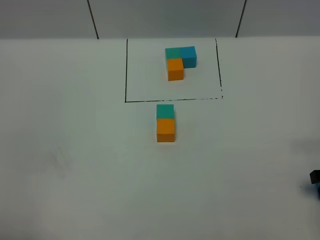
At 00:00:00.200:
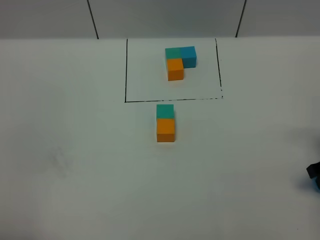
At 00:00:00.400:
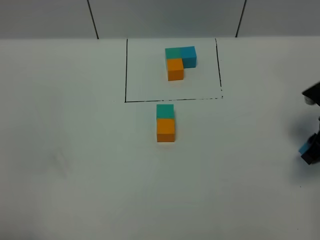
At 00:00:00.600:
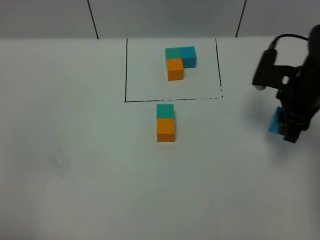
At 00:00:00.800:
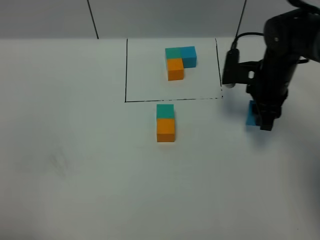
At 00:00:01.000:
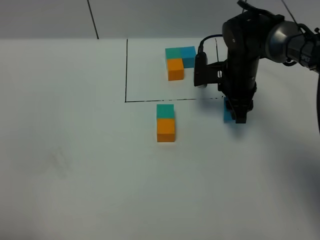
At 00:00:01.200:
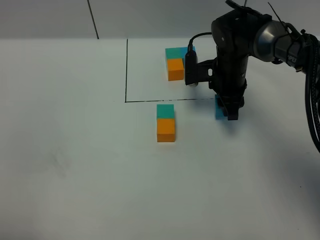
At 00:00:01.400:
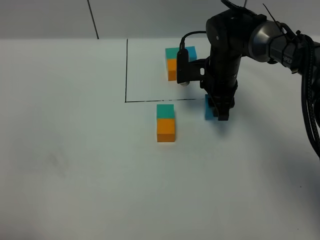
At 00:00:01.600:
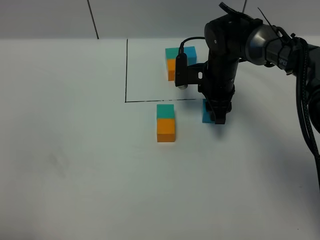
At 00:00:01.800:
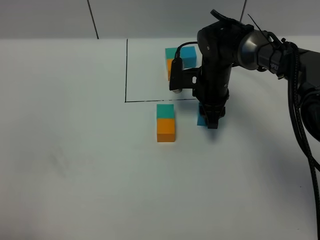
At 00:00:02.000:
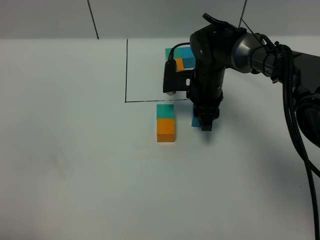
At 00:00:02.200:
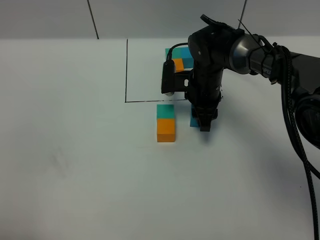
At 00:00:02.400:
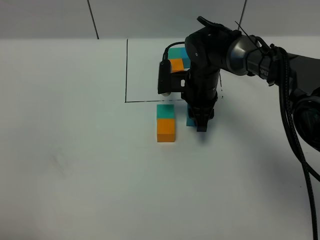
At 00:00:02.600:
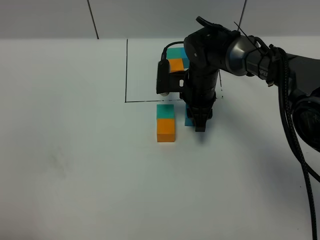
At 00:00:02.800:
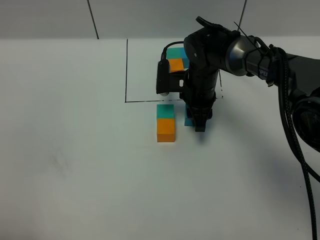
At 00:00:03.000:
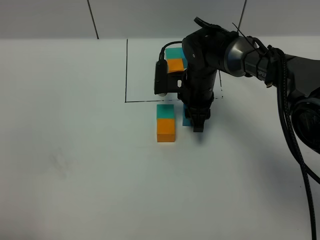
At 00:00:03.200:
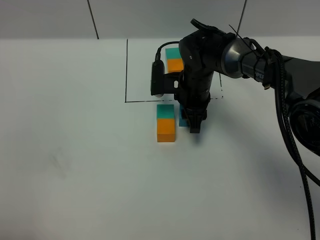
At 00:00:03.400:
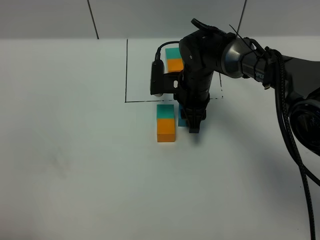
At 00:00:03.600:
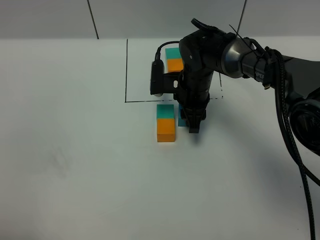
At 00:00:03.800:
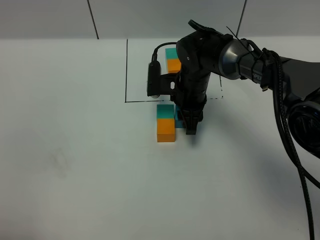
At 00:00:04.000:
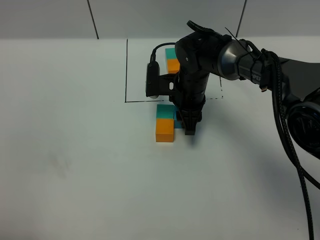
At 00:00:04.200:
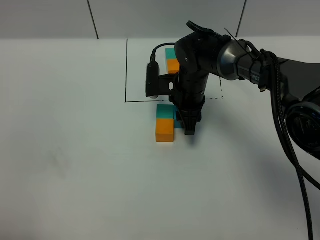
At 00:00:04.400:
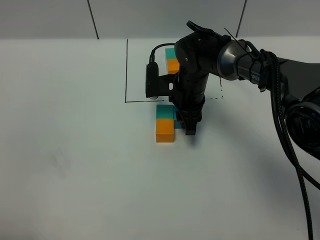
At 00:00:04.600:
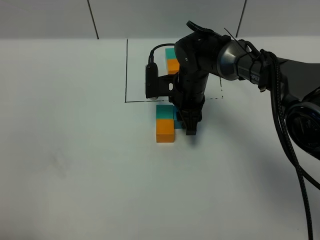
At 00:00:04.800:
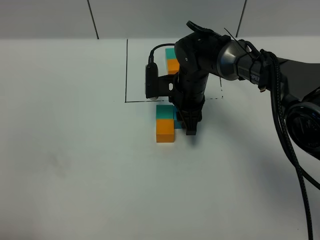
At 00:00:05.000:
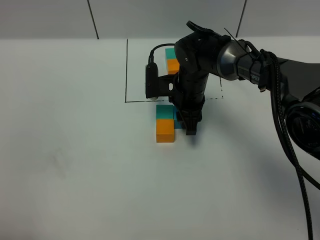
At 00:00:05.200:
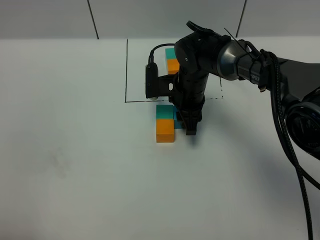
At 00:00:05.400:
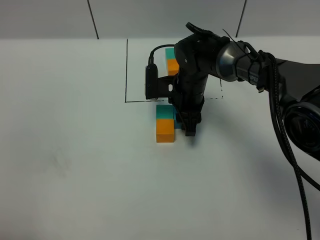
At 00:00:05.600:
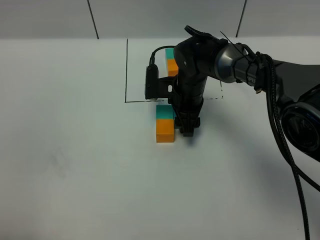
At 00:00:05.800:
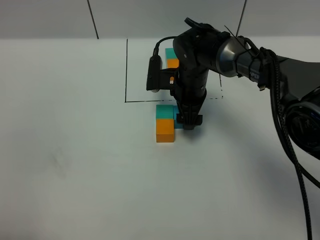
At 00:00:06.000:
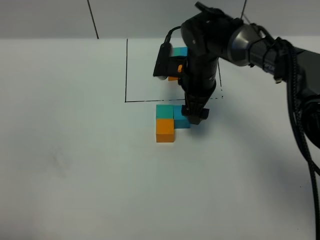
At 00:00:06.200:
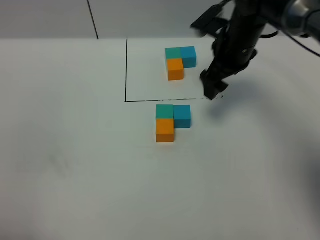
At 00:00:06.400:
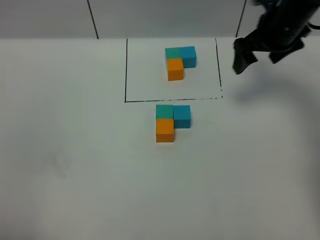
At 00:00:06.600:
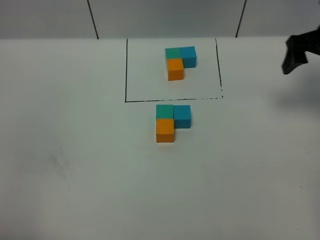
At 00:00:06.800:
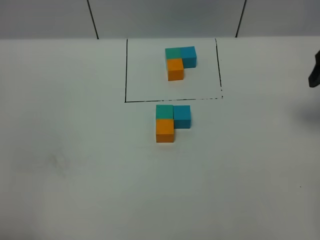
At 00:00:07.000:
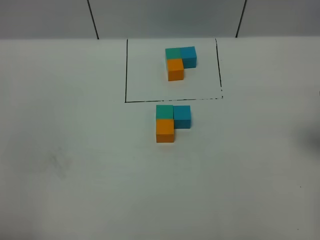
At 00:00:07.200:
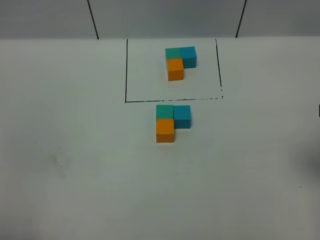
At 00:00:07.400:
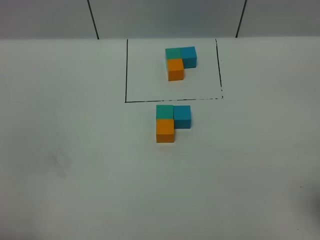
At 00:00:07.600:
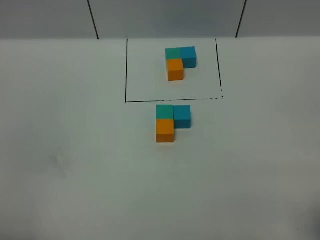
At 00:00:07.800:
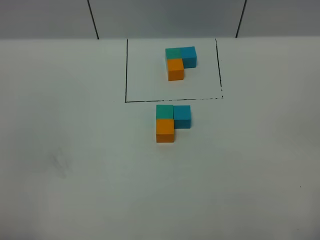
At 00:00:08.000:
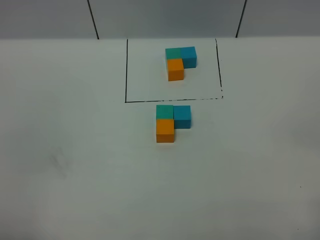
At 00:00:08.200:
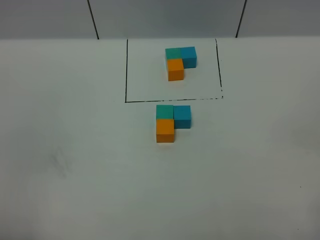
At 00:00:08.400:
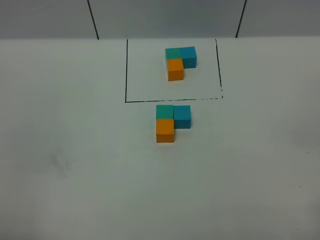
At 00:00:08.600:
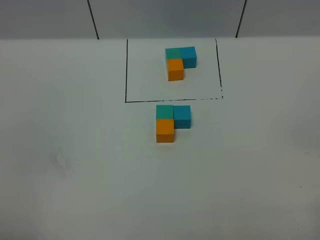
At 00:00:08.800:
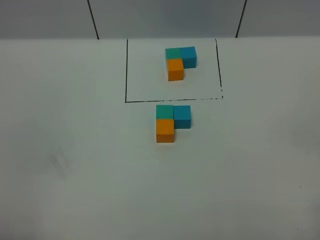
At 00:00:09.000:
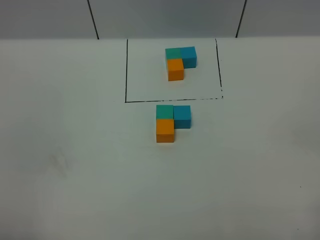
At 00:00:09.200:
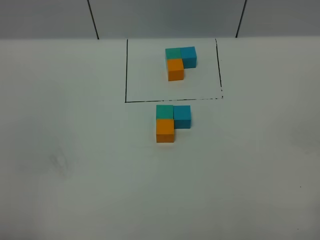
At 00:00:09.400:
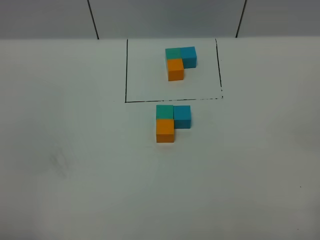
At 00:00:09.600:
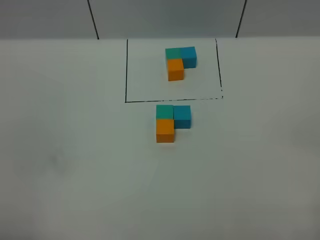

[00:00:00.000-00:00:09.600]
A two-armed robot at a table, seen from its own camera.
Task of the whole recording: According to the building block template in front, assemble the scattered blocks together.
Step, 00:00:00.000 to 00:00:05.600: Put the blue build block on the right of the green build block.
00:00:00.000 to 00:00:01.600: The right gripper shifts approximately 30 cm to the left and forward.
00:00:01.600 to 00:00:03.200: The right gripper goes roughly 5 cm to the left.
00:00:03.200 to 00:00:04.800: Neither gripper changes place.
00:00:04.800 to 00:00:06.400: The right gripper moves to the right and upward, about 25 cm, and opens.
00:00:06.400 to 00:00:08.000: The right gripper shifts roughly 40 cm backward.
